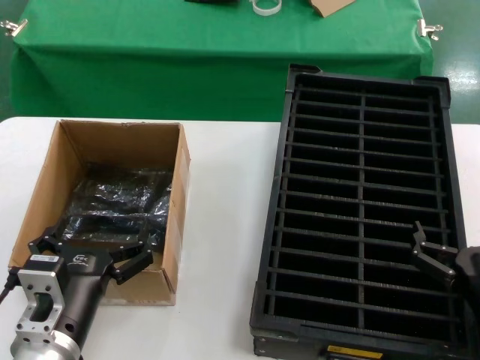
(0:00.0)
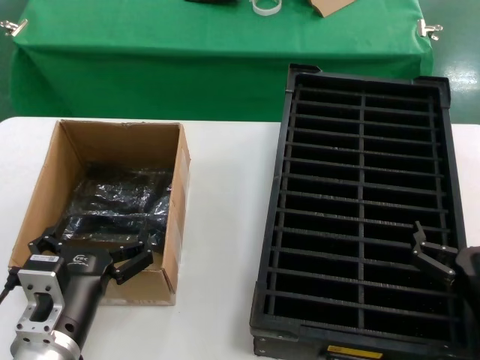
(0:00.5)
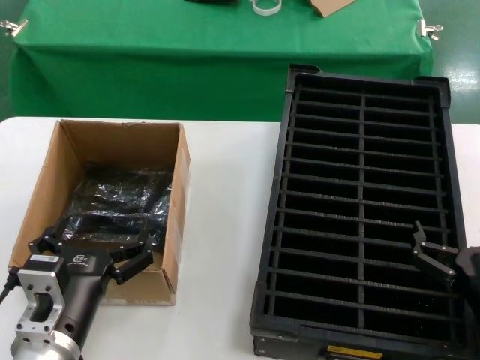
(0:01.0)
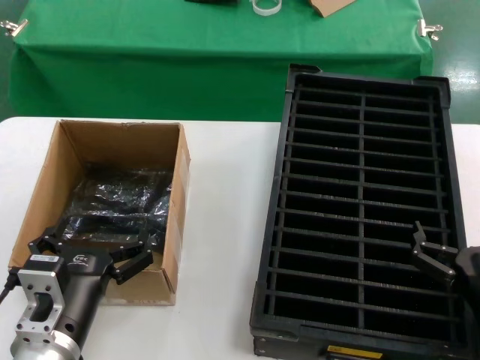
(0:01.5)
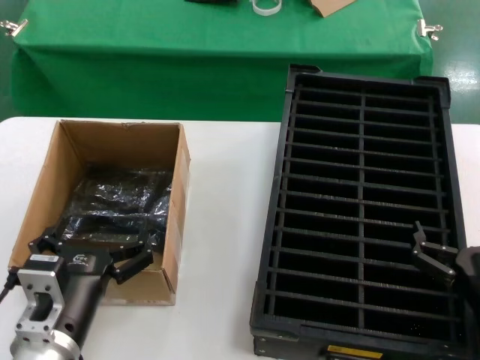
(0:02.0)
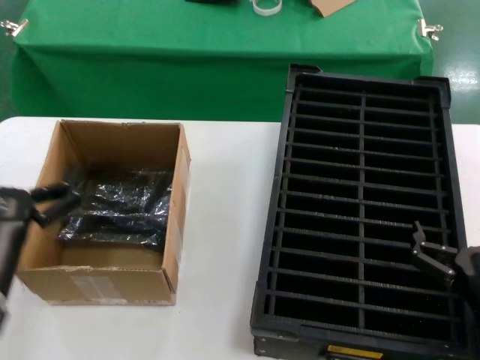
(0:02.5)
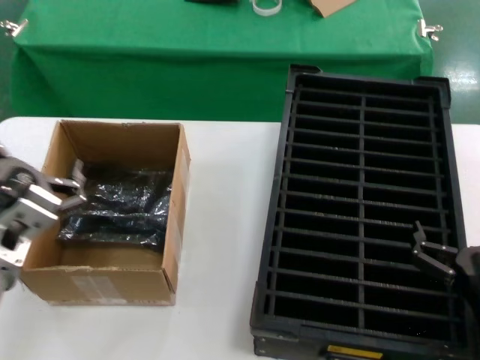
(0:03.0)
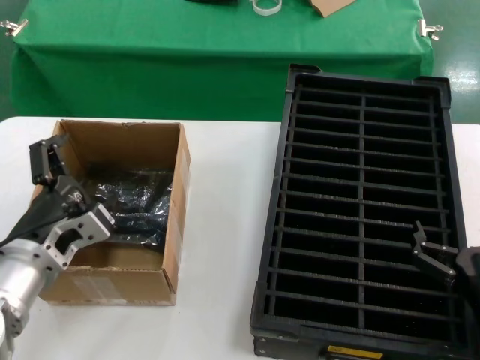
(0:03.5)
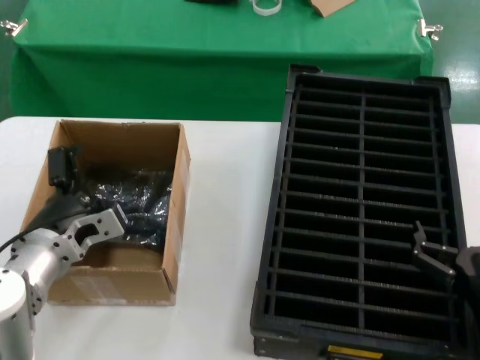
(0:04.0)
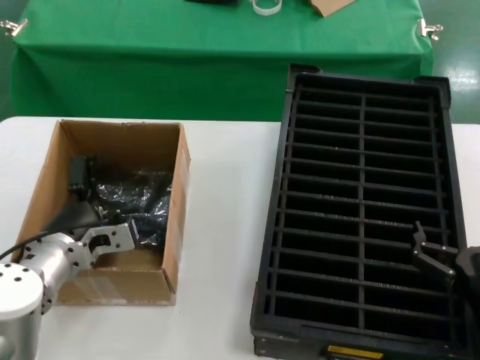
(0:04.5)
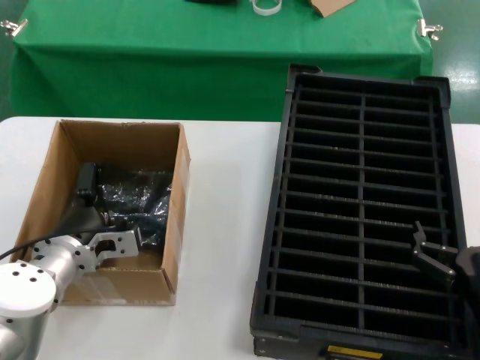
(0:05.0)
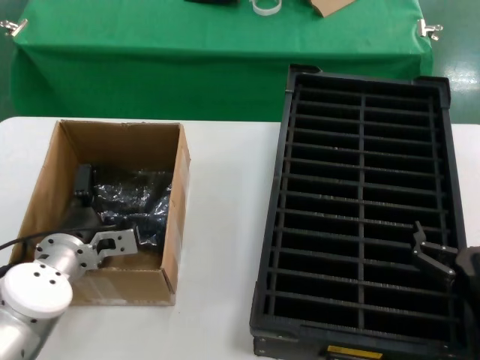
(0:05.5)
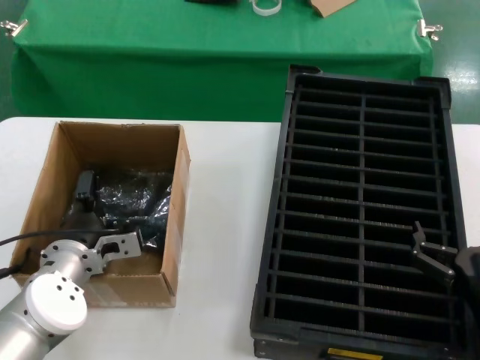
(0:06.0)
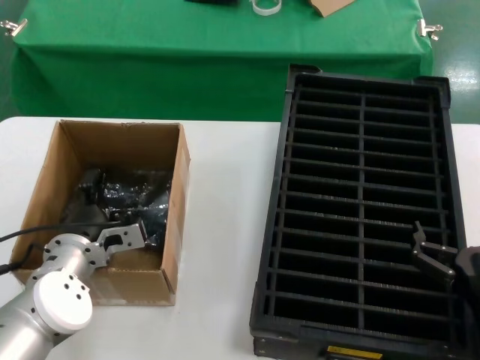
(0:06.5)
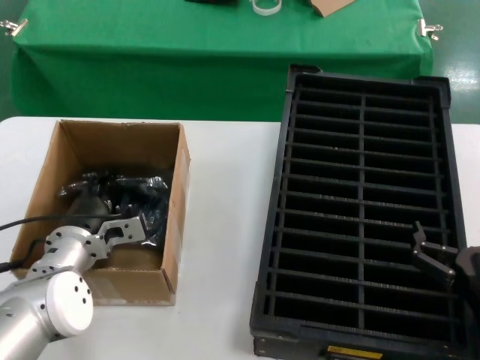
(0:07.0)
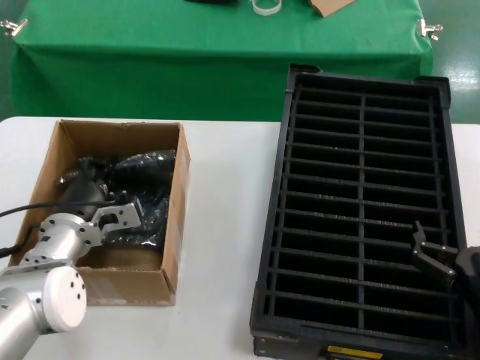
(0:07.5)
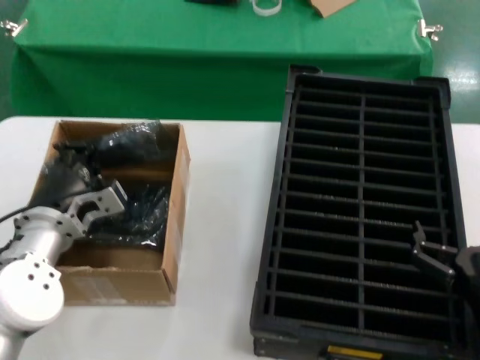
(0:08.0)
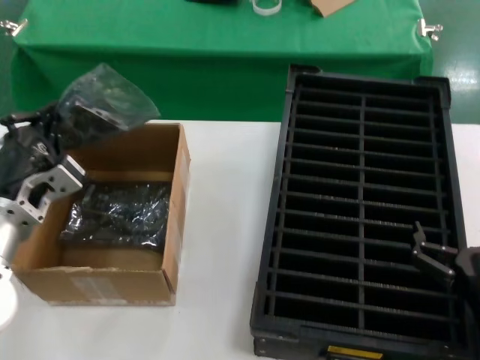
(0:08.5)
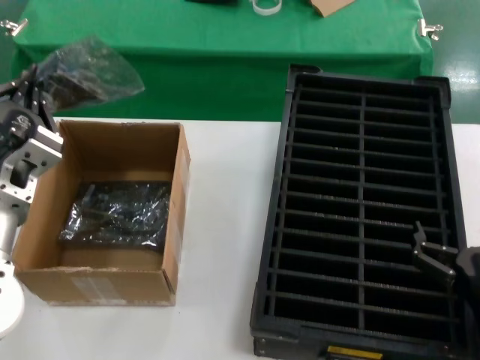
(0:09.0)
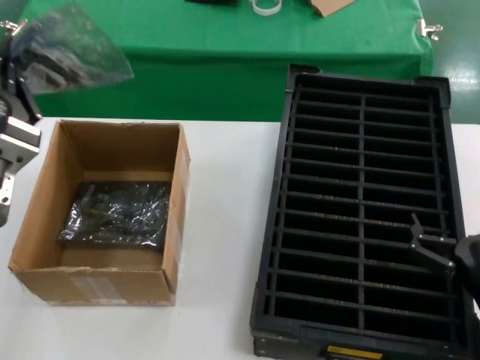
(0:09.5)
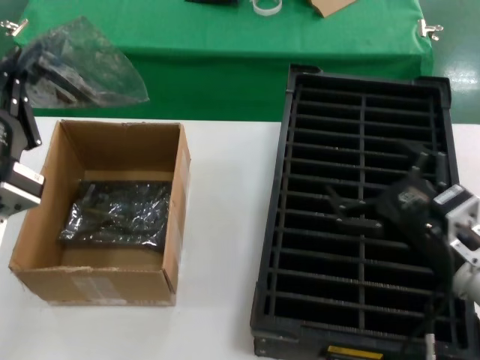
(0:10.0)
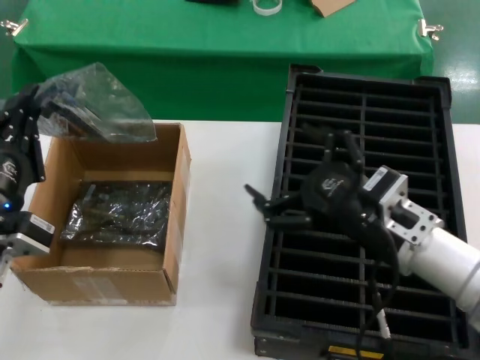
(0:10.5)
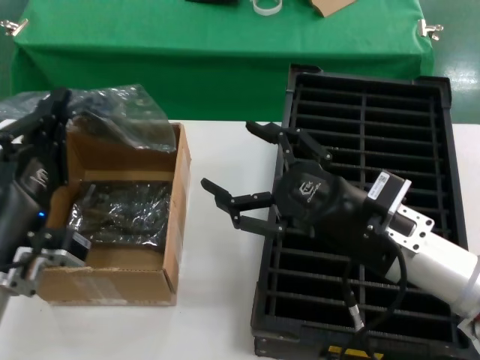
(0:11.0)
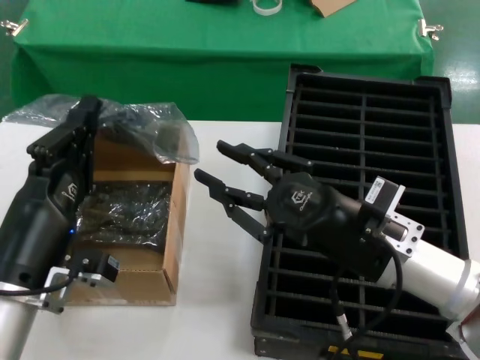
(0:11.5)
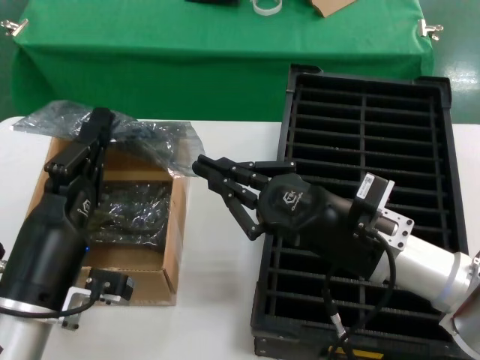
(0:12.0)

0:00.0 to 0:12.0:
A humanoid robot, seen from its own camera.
Task of the whole recording: take out graphics card from box remove packaging put into black container.
Step, 0:00.0 to 0:07.0: Grasp the bag.
Step, 0:07.5 to 0:09.5: Lift the bag.
0:00.0 to 0:02.0: The two hands keep their place.
0:02.0 to 0:04.0: The left hand heads forward, covering approximately 10 cm.
0:04.0 to 0:06.0: The left hand goes about 10 cm downward and forward.
0:06.0 to 0:08.0: The left hand is displaced upward by approximately 5 cm.
0:08.0 to 0:10.0: The right hand is displaced upward and forward by approximately 10 cm; the left hand is displaced backward and upward by roughly 15 cm.
0:10.0 to 0:12.0: The right hand shifts some 10 cm to the left; the left hand heads downward, covering about 10 cm.

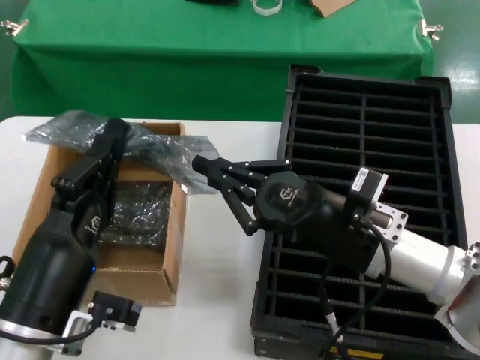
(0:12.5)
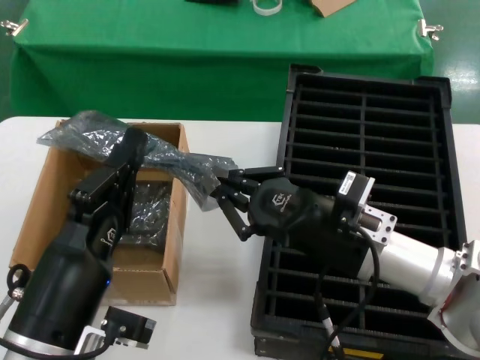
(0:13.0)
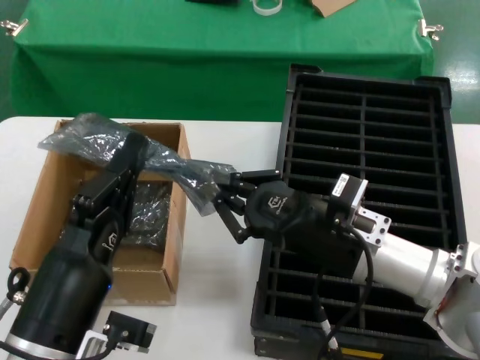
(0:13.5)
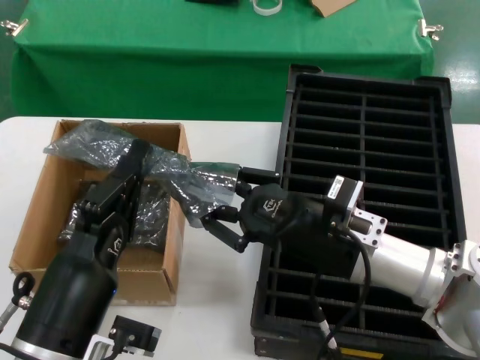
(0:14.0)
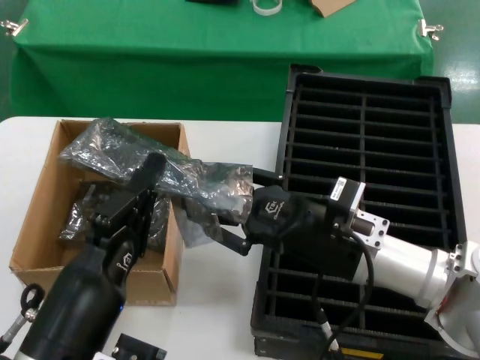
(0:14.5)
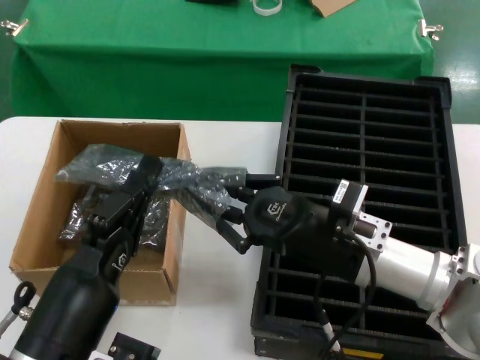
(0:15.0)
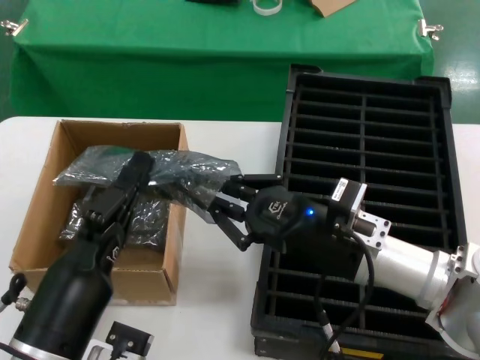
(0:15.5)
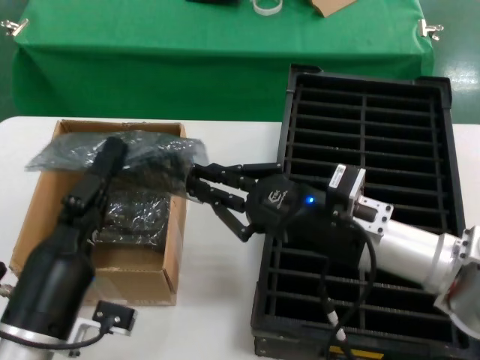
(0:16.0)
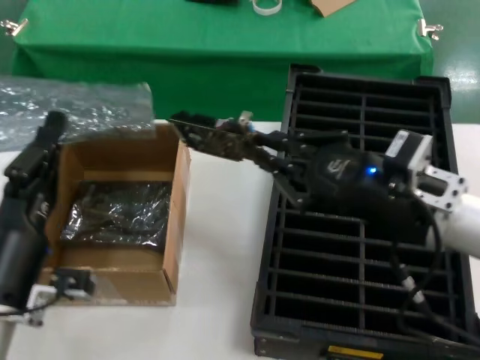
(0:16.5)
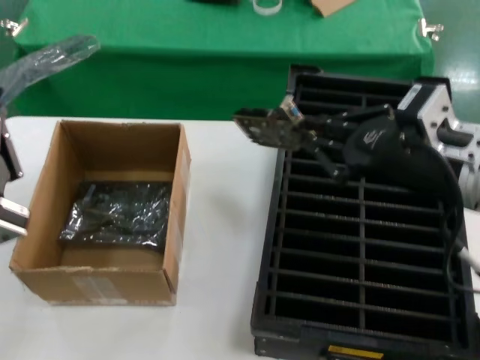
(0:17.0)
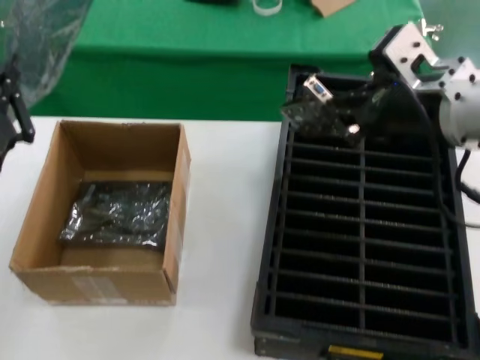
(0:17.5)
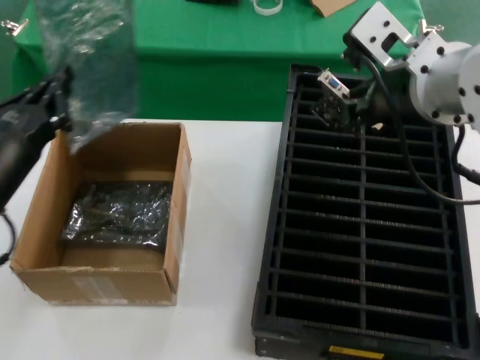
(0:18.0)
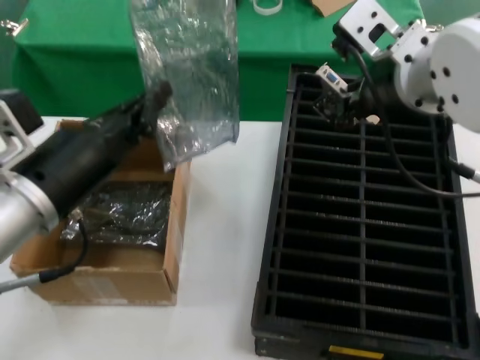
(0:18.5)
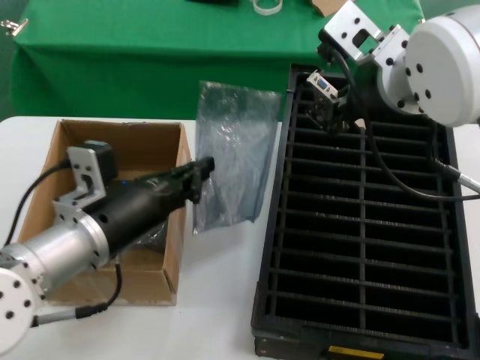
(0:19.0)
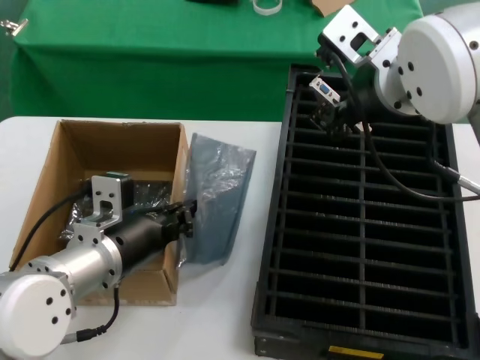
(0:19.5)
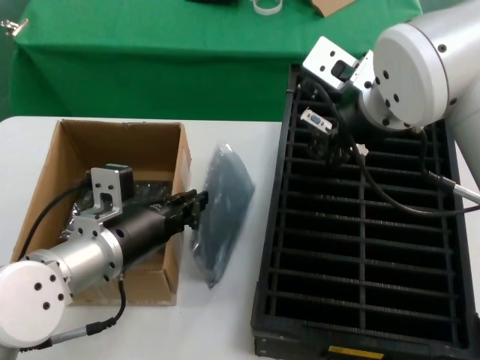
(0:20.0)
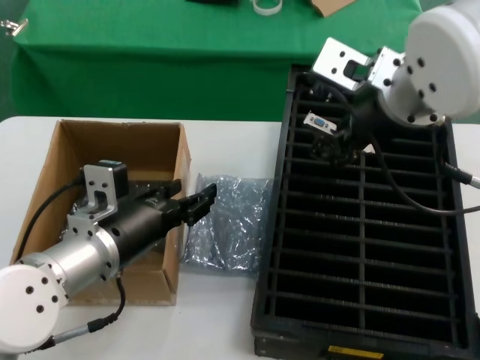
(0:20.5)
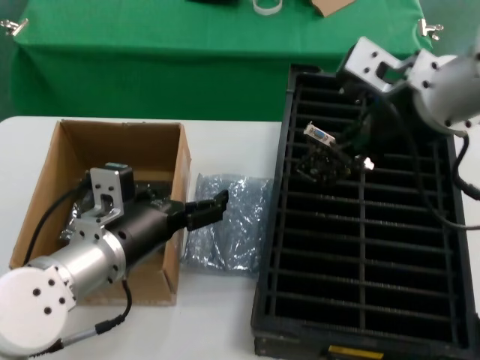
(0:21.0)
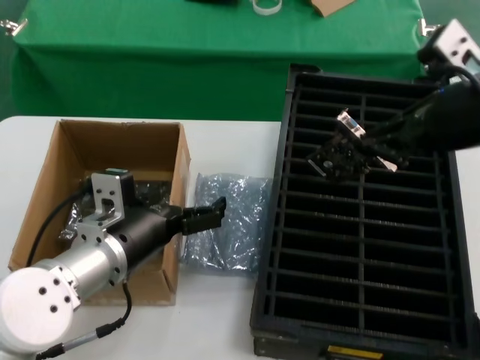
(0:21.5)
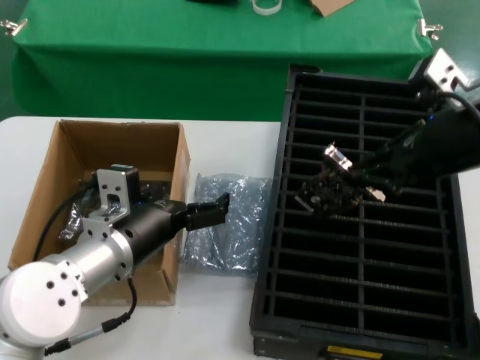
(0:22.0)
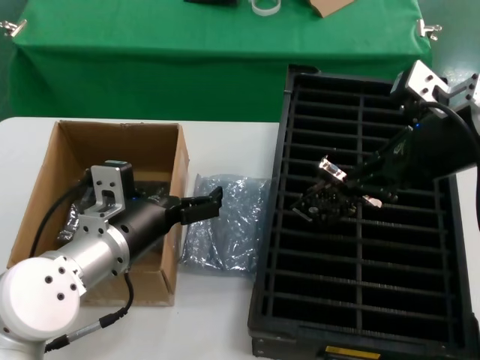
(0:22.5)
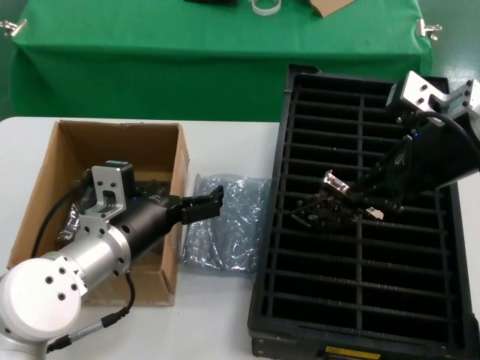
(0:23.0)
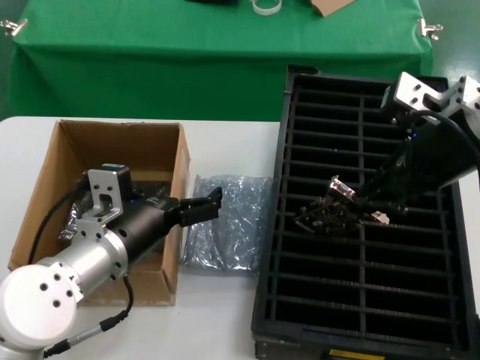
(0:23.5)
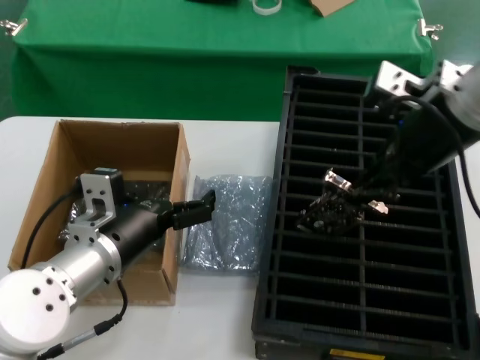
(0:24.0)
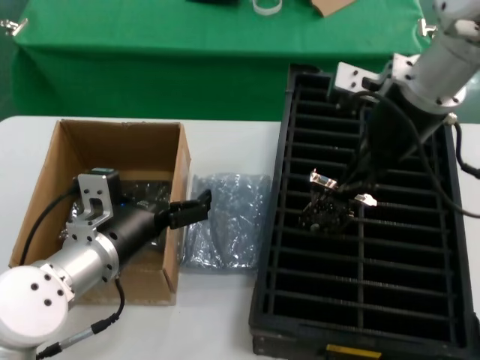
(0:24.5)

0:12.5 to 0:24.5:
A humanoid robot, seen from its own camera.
Task of the whole recording: take out graphics card from box remove packaging put into black container.
Step, 0:12.5 to 0:16.5: Take out the hard disk of the bag.
Step, 0:17.0 to 0:20.0: Place the down the bag.
0:14.5 to 0:16.5: The left hand heads to the left and forward, covering about 10 cm; the right hand goes some 10 cm upward and to the right.
0:16.5 to 0:18.5: The left hand shifts approximately 15 cm upward; the right hand travels upward and to the left by approximately 20 cm.
0:18.5 to 0:20.5: The left hand is displaced downward by about 5 cm.
0:20.5 to 0:22.5: The right hand is displaced to the right by about 10 cm.
0:22.5 to 0:24.5: The right hand heads to the left and forward, covering about 10 cm.

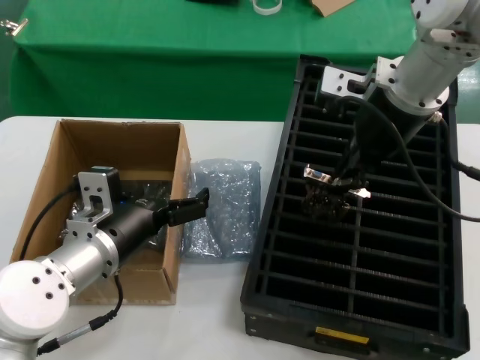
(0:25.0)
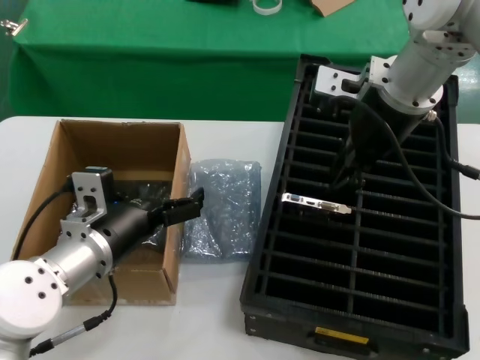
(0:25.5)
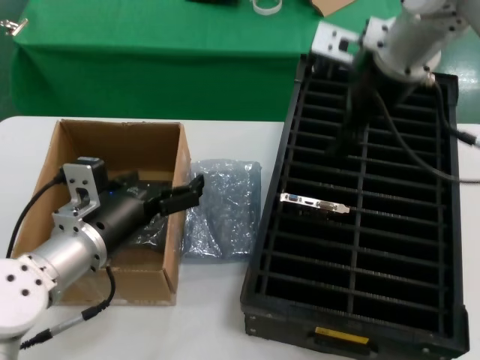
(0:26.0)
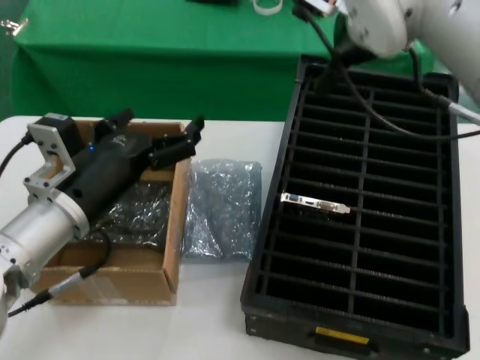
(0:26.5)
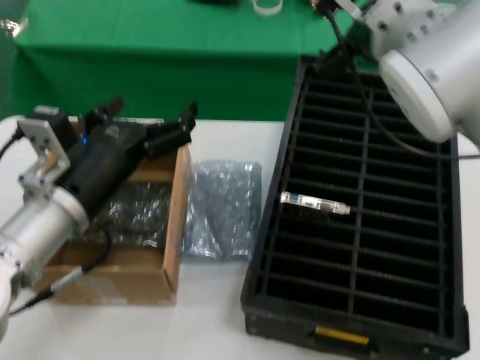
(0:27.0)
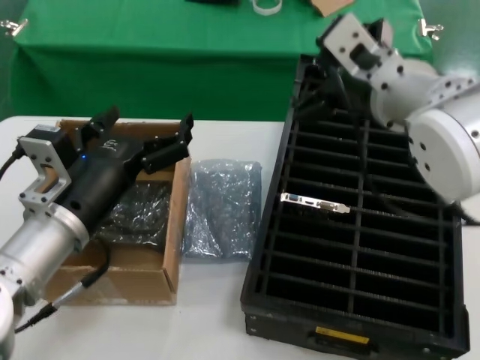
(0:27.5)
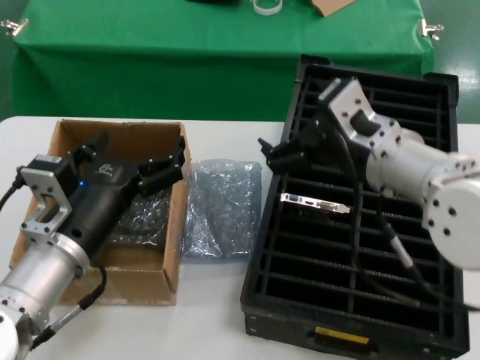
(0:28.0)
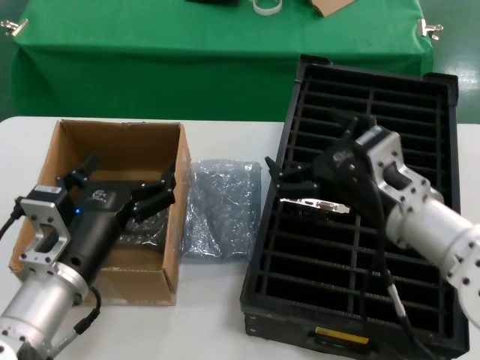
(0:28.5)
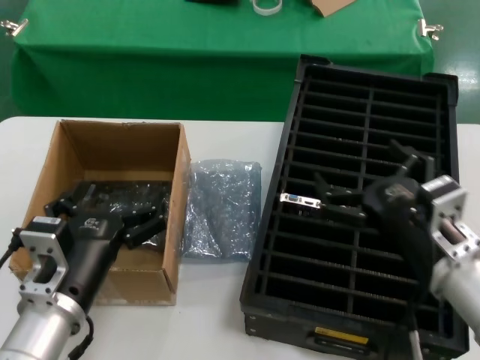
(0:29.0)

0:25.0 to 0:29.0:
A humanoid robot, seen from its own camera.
Task of the whole recording: take out graphics card from box remove packaging put into black container.
0:25.0 to 0:27.0: The left hand shifts about 5 cm upward. Meanwhile the right hand moves backward, about 5 cm.
0:27.0 to 0:29.0: The left hand goes approximately 10 cm downward and backward. The right hand is displaced downward, backward and to the right by some 30 cm.
